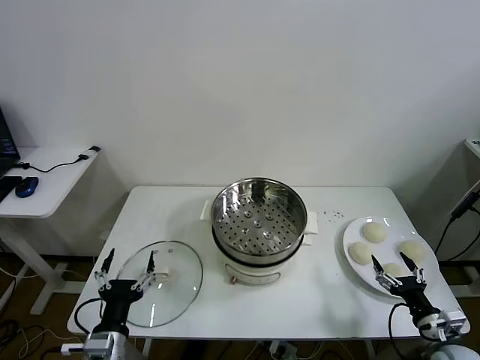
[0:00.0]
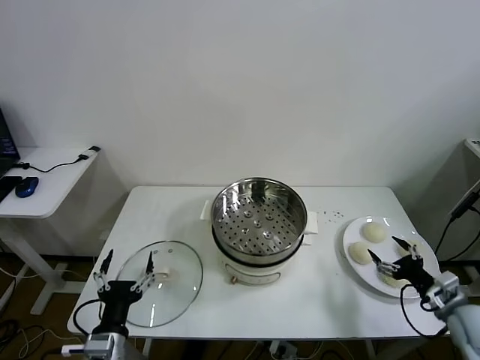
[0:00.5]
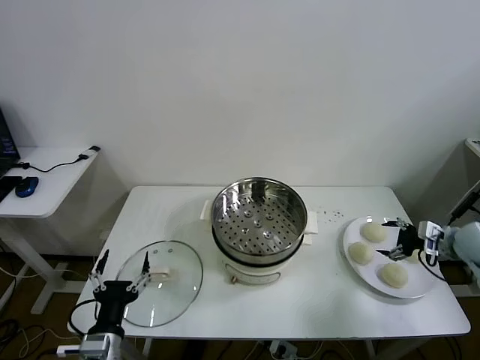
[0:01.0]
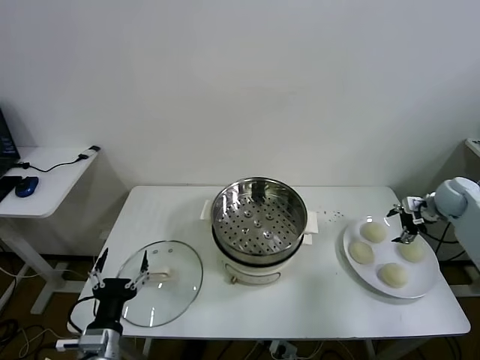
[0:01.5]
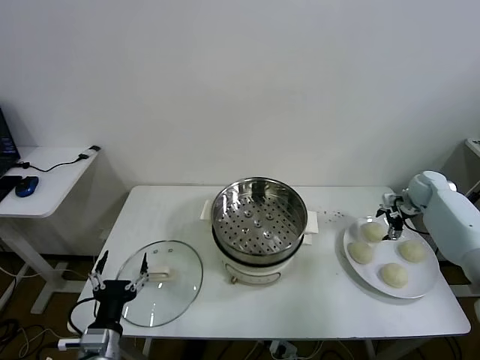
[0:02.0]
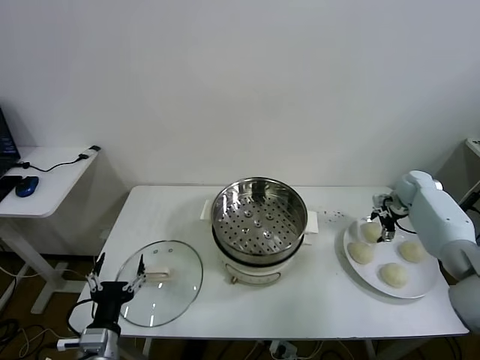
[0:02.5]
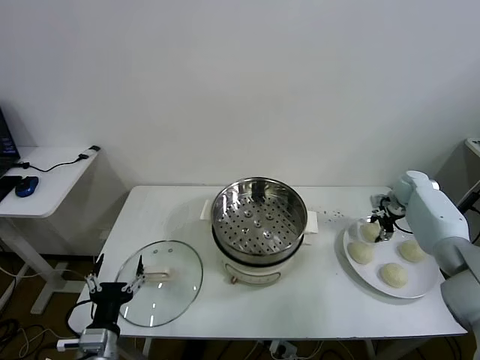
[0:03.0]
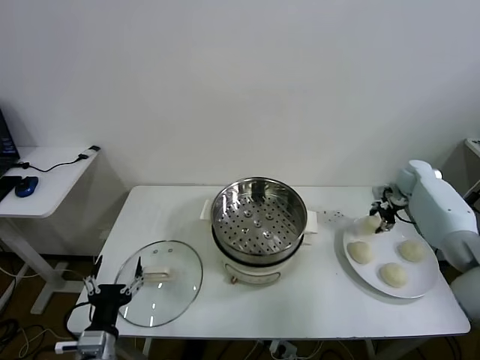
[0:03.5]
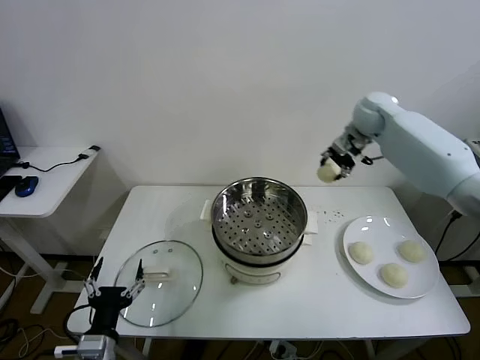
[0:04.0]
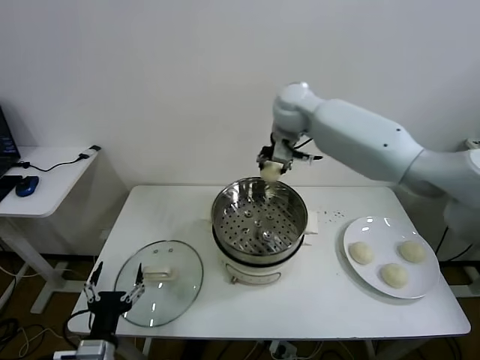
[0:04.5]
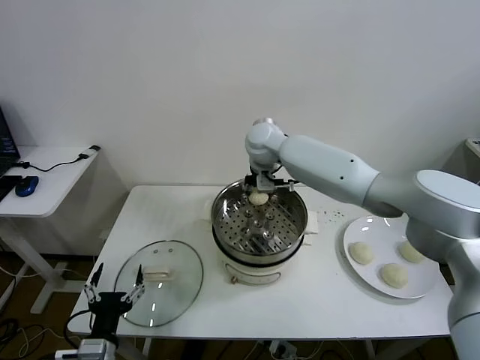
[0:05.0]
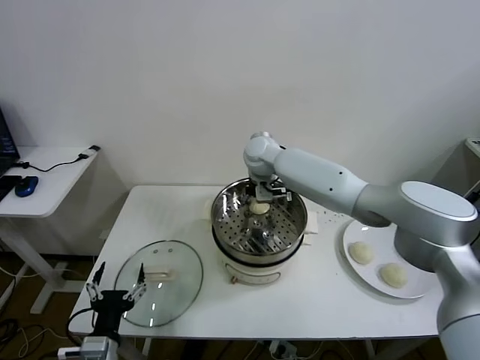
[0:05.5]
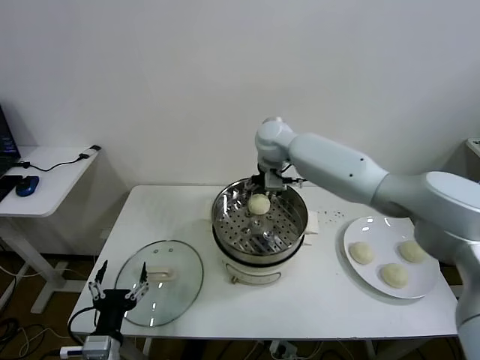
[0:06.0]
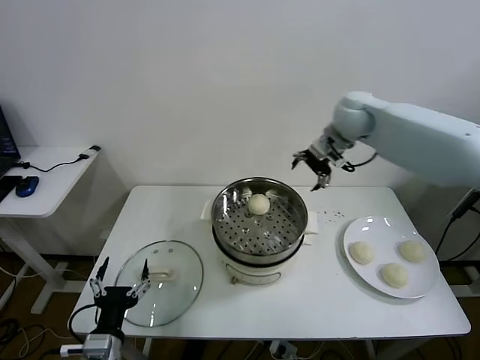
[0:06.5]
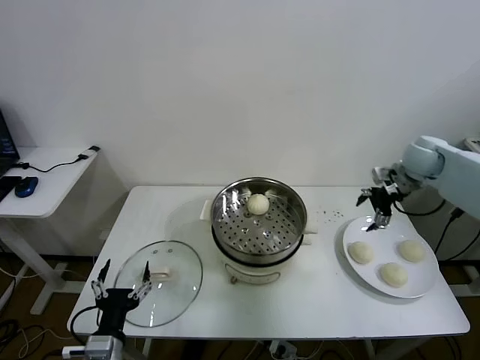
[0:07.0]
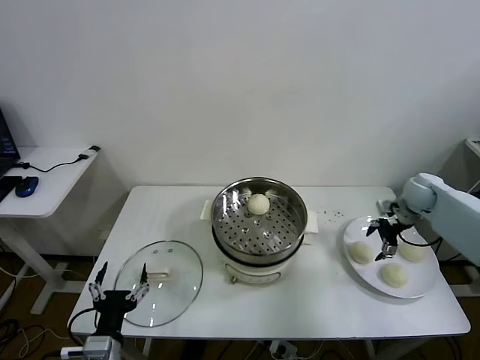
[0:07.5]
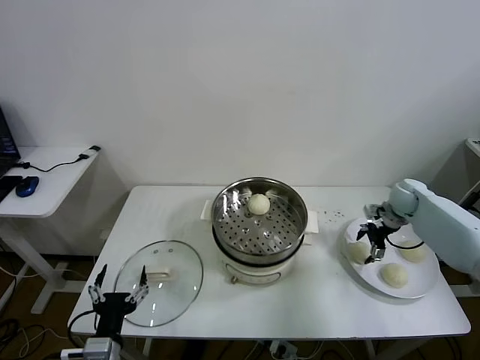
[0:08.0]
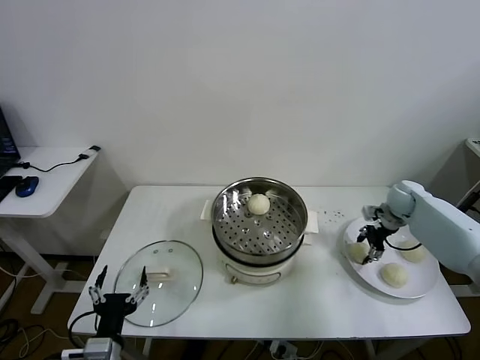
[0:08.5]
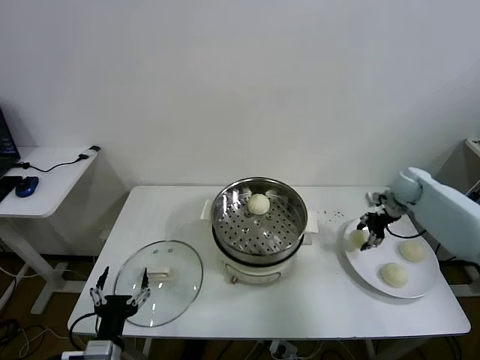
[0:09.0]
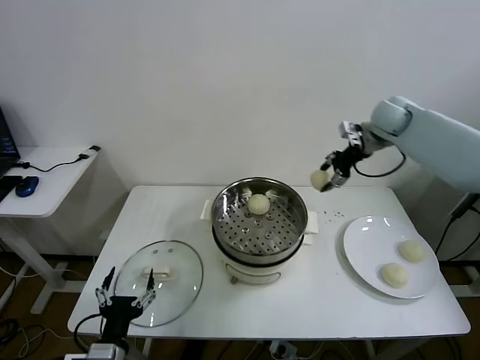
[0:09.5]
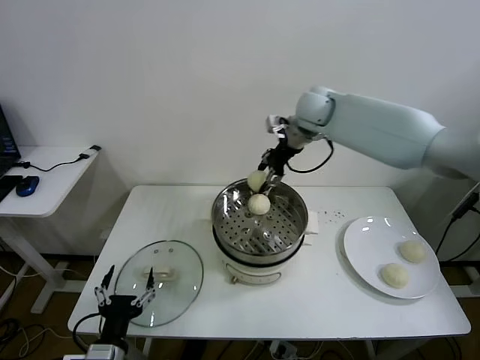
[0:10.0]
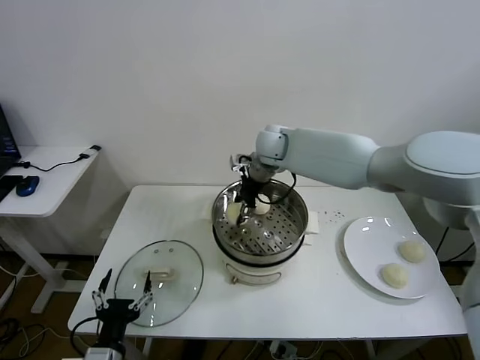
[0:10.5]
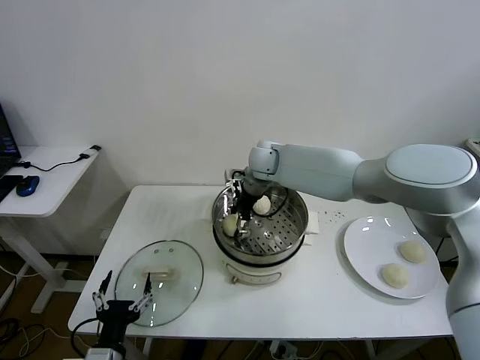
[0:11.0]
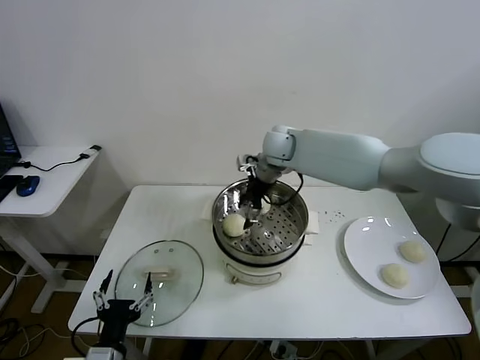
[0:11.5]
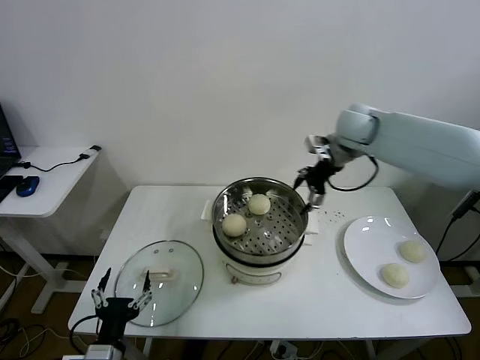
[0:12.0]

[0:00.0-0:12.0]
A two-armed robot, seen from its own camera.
Task of the whole recording: take steamed baozi put them in steamer.
Step, 0:00.0 to 0:02.5: Grasp the baozi in the plate with right gripper.
Step, 0:03.0 to 0:05.5: Place the baozi on the steamer with right gripper.
Step, 0:06.0 to 0:08.0: Grasp the baozi in the plate with right gripper.
Step, 0:08.5 to 0:11.0: Place the baozi on the steamer with right gripper.
0:02.0 to 0:04.0: The right gripper travels to the left and upward by roughly 35 cm, and closes up.
0:04.0 to 0:06.0: The right gripper heads to the left, covering approximately 15 cm, and opens up.
0:06.0 to 0:08.0: The right gripper moves to the right and downward, some 40 cm.
0:08.0 to 0:10.0: The right gripper heads to the left and upward, covering some 40 cm, and closes its fingers.
0:10.0 to 0:12.0: The right gripper heads to the right, covering roughly 15 cm, and opens its fingers.

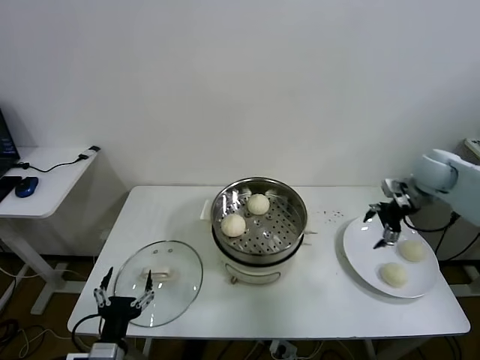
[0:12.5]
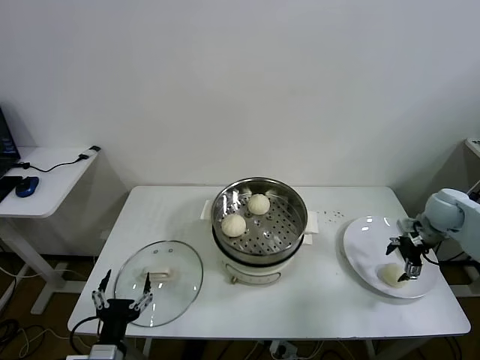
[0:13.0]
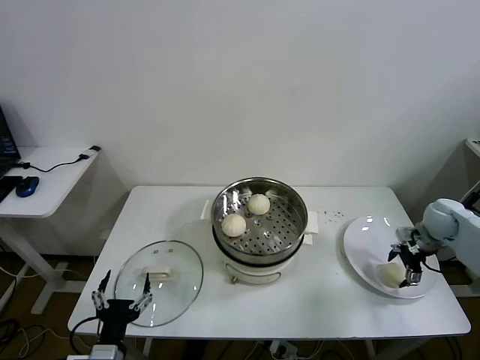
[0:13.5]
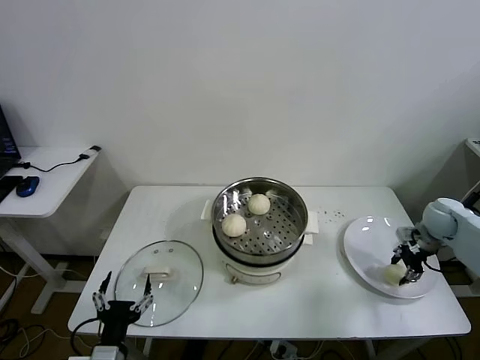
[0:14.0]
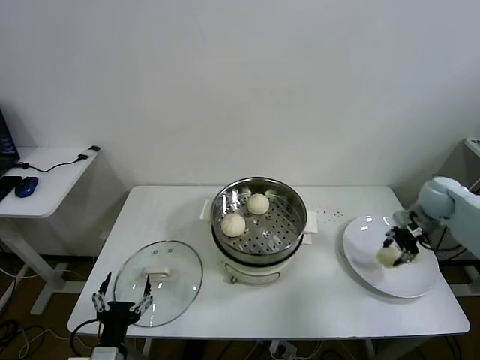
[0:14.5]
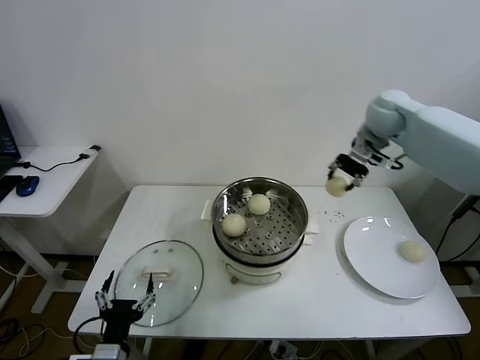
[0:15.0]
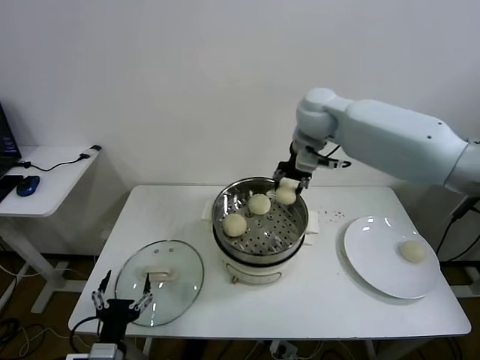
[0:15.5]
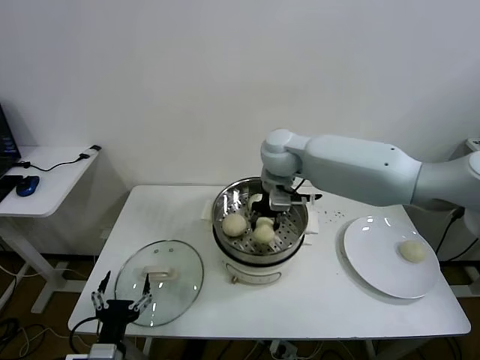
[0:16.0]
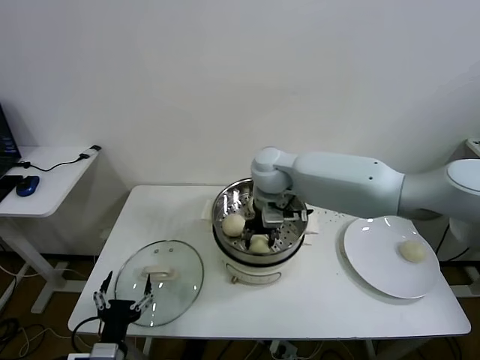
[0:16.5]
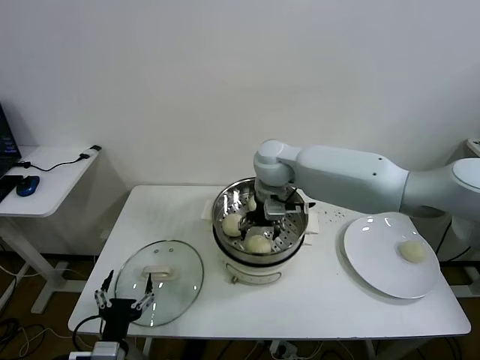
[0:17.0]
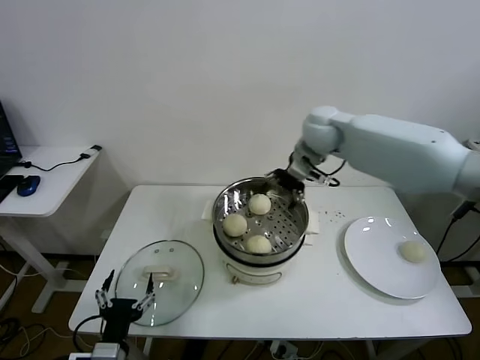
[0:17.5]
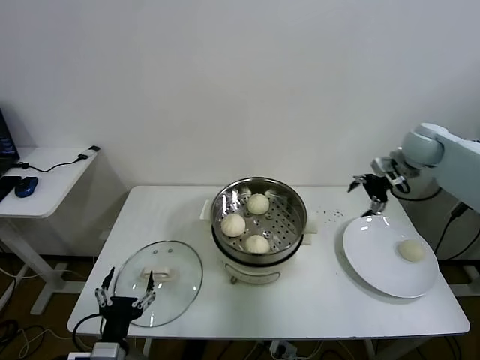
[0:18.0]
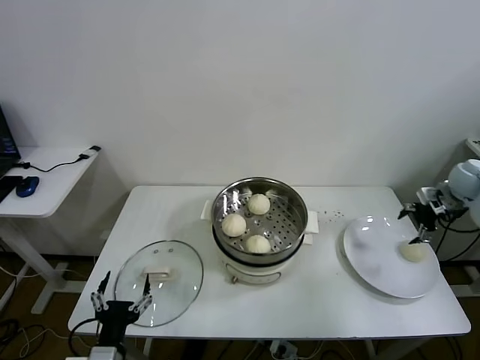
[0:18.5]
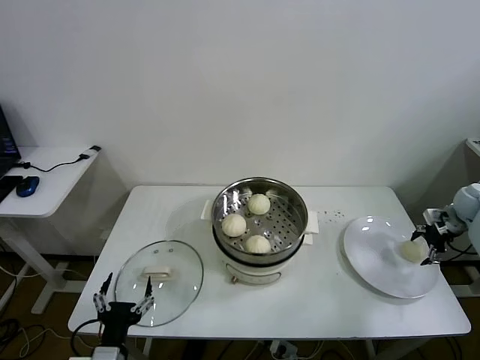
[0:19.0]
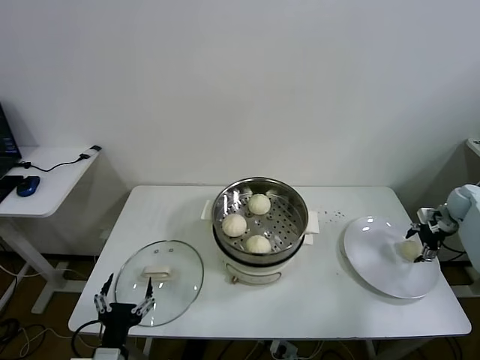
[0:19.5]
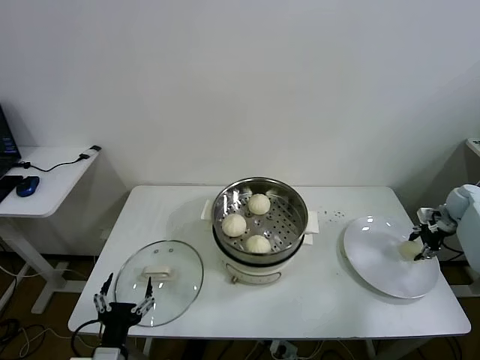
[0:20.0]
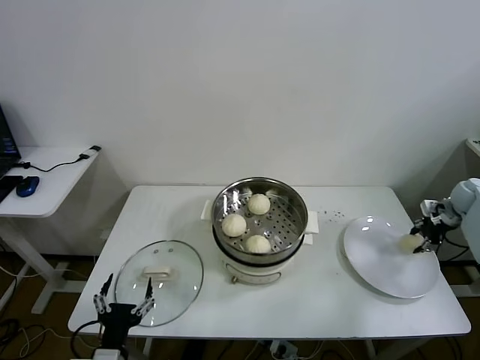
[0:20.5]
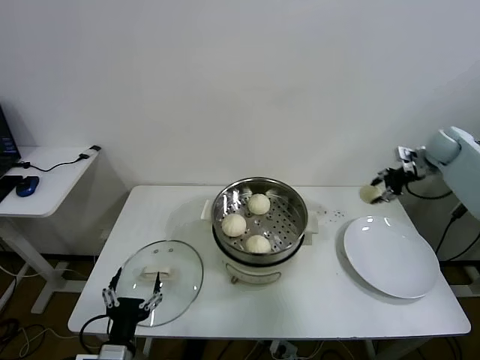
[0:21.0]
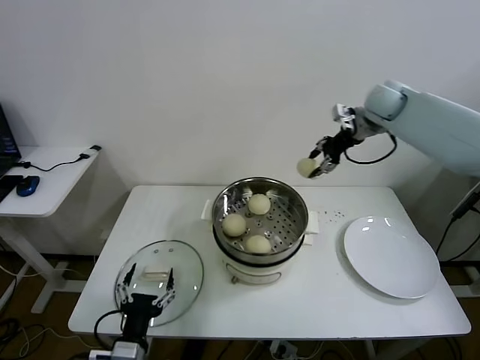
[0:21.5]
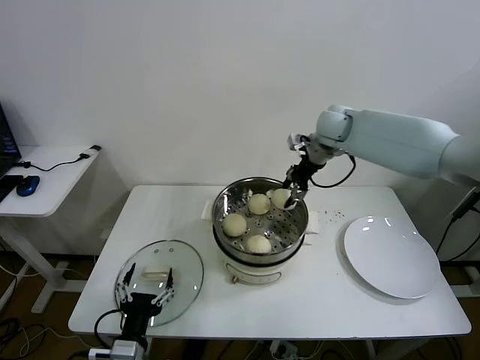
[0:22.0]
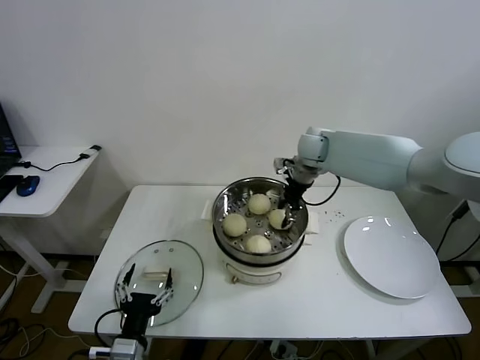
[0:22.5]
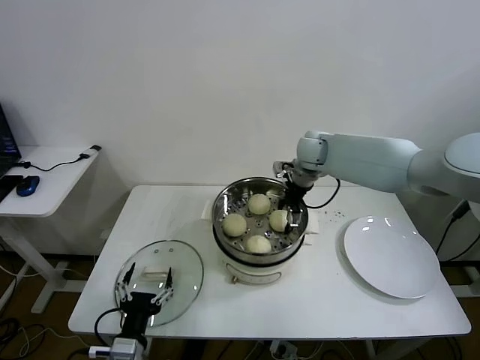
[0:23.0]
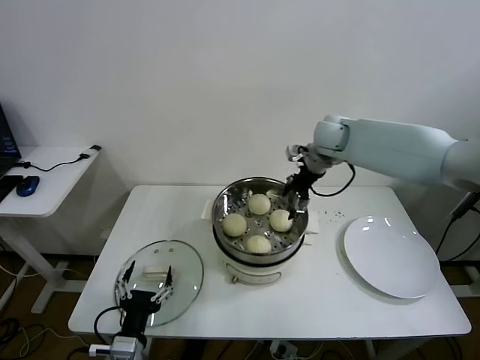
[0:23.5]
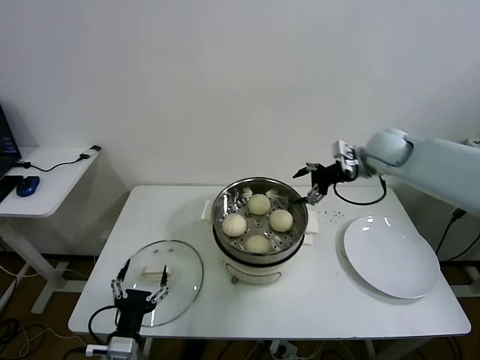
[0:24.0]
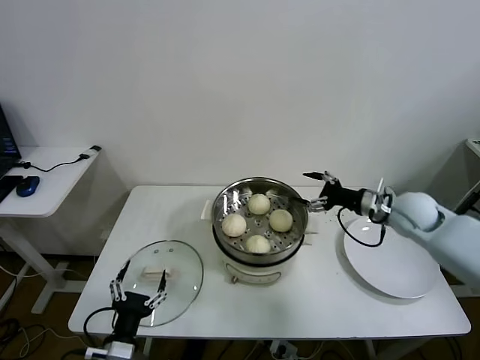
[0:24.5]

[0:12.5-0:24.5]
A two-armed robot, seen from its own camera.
Task of the whole recording: take steamed baozi put them in steamer.
Step, 0:14.0 to 0:16.5: Place the baozi on the steamer with right gripper.
Step, 0:17.0 to 0:19.5: Grasp the baozi in the plate with right gripper.
Step, 0:20.5 to 0:23.0: Place the baozi on the steamer with right gripper.
0:12.5 to 0:14.5: The right gripper closes.
0:14.5 to 0:16.5: The right gripper moves to the left, about 40 cm.
0:16.5 to 0:18.5: The right gripper moves to the right, about 50 cm, and opens.
0:18.5 to 0:20.5: The right gripper ends up some 5 cm from where it was, and closes its fingers.
0:20.5 to 0:22.5: The right gripper heads to the left, covering some 40 cm.
0:22.5 to 0:24.5: The right gripper moves to the right and backward, about 25 cm, and opens.

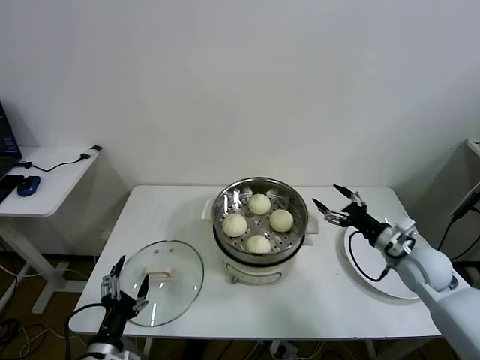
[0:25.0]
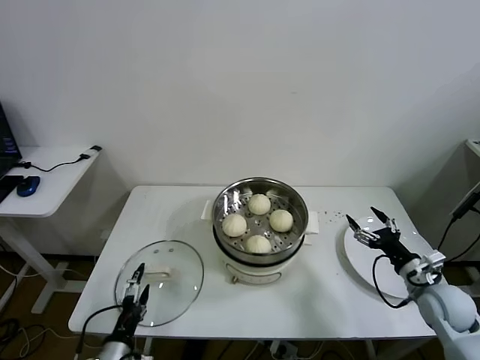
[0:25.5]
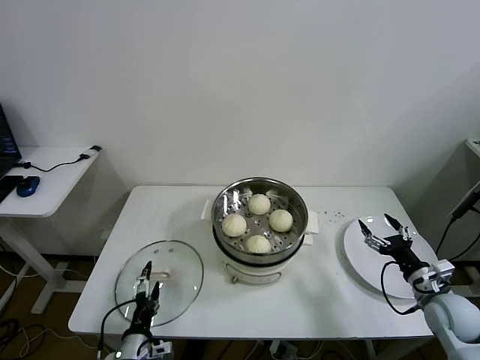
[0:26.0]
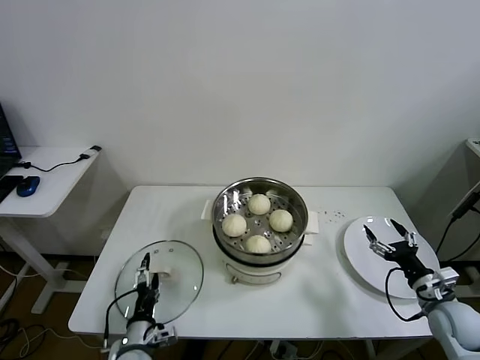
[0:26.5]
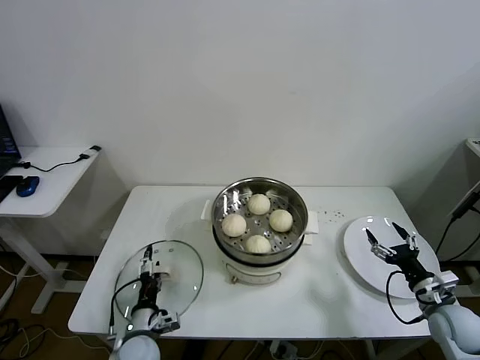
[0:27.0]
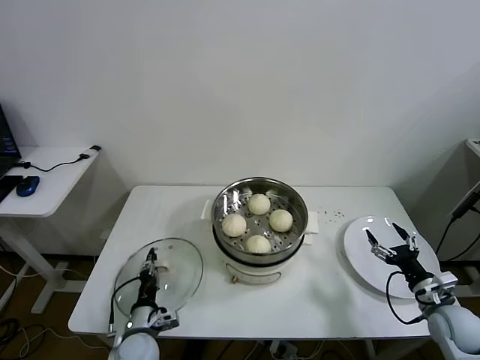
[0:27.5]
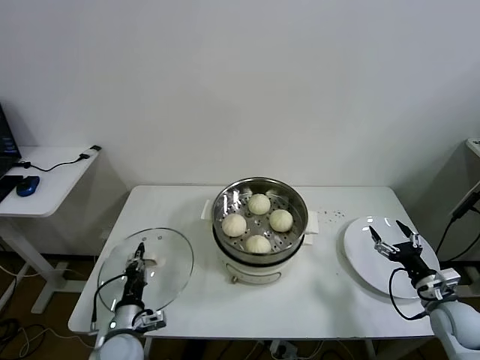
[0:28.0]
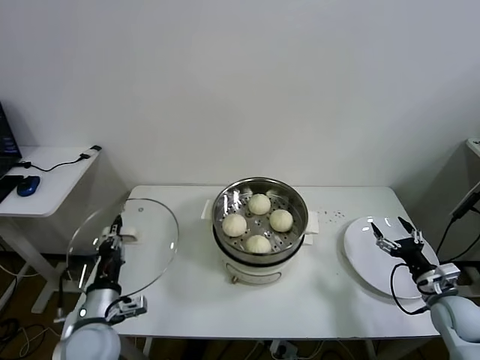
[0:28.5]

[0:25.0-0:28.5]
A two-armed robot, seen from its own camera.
Task of the whole recording: take steamed baozi put them in steamer.
Step, 0:25.0 to 0:27.5: Grasp the pot lid with left gripper.
0:25.0 to 0:27.0: The right gripper is displaced backward, downward and to the right by about 15 cm. The left gripper moves downward and forward, roughly 15 cm.
0:27.0 to 0:28.5: The left gripper goes some 15 cm upward, and closes.
